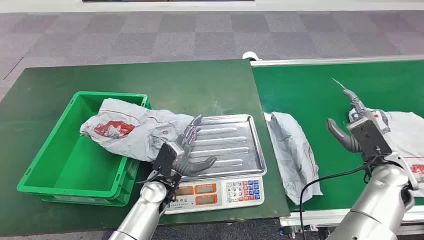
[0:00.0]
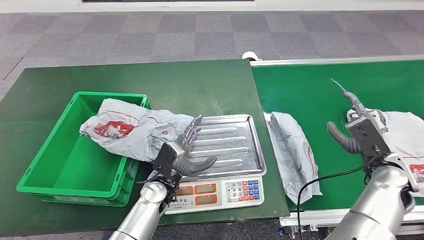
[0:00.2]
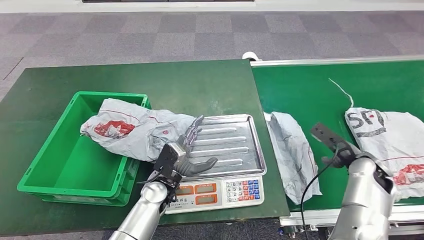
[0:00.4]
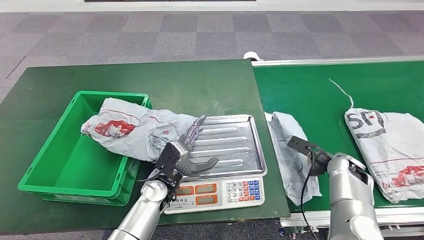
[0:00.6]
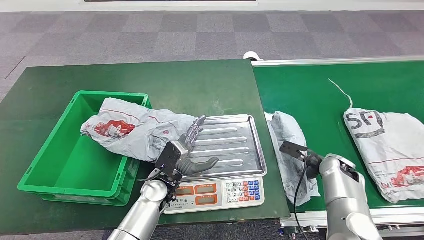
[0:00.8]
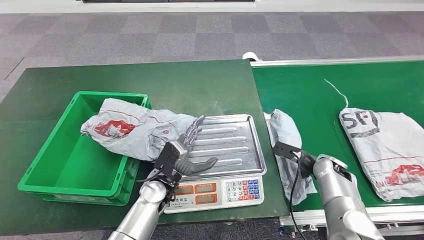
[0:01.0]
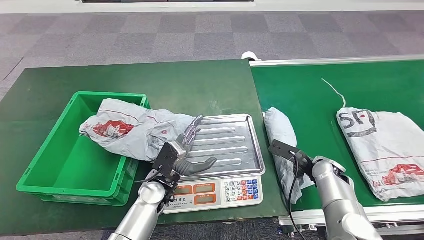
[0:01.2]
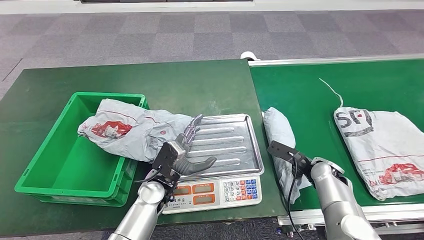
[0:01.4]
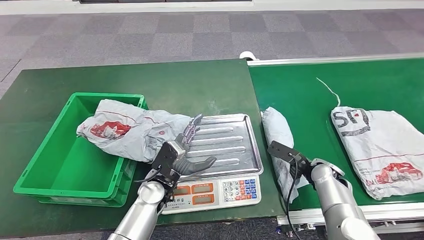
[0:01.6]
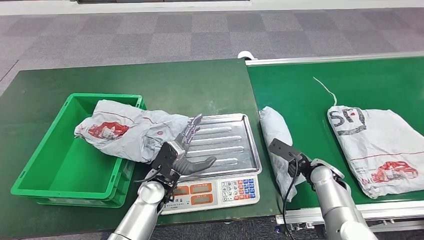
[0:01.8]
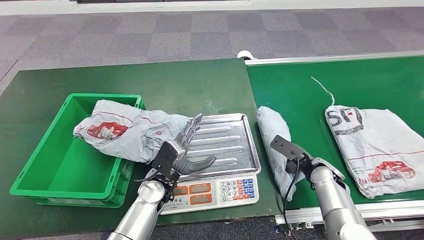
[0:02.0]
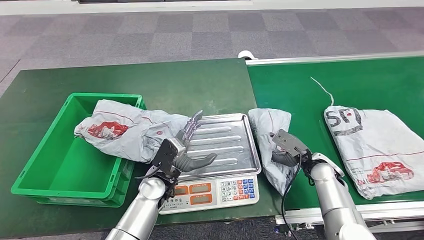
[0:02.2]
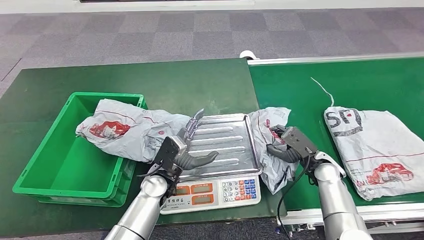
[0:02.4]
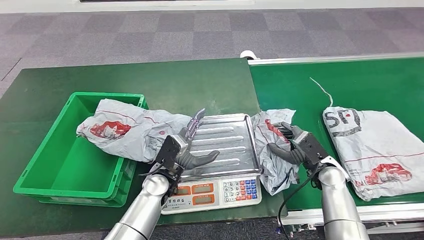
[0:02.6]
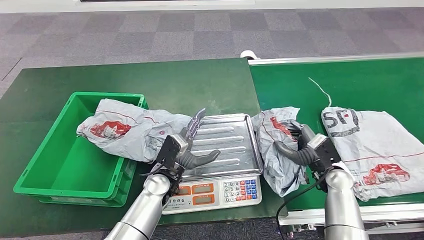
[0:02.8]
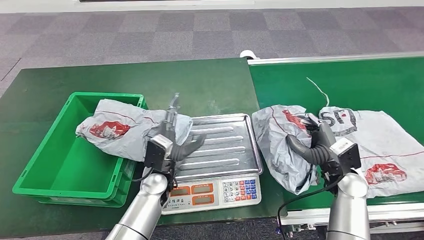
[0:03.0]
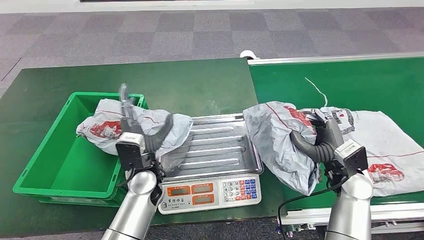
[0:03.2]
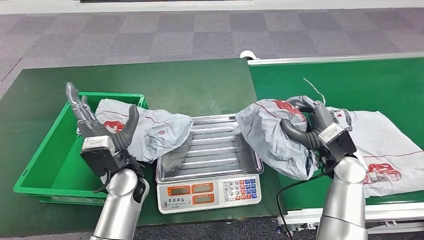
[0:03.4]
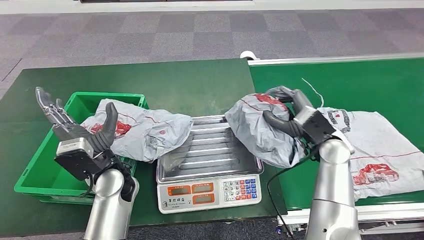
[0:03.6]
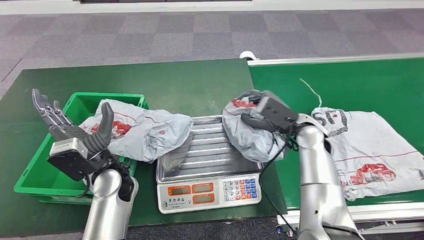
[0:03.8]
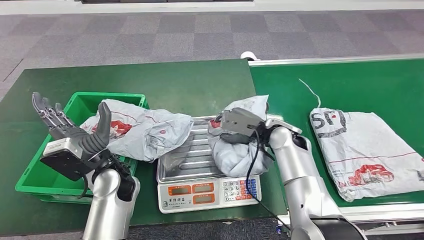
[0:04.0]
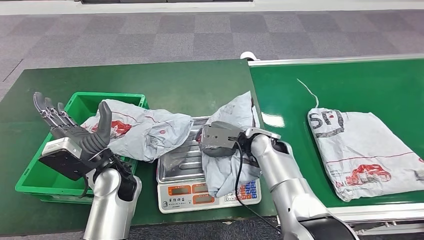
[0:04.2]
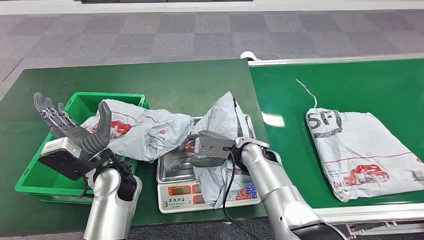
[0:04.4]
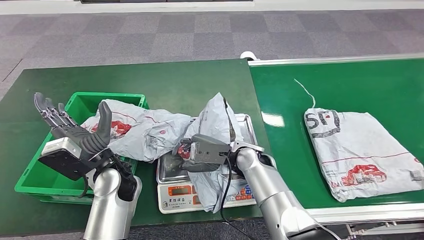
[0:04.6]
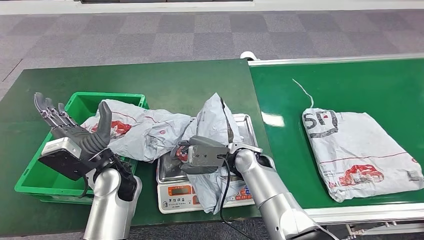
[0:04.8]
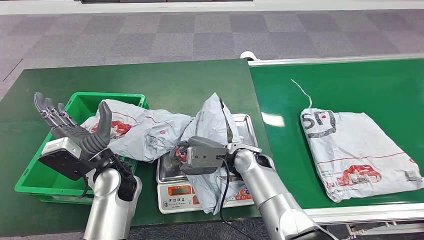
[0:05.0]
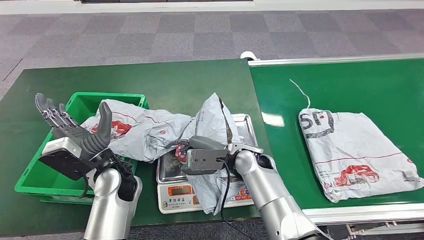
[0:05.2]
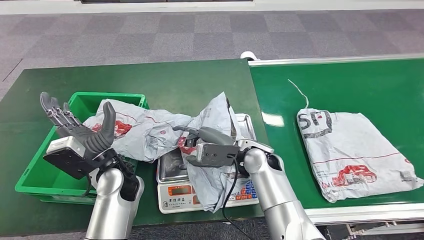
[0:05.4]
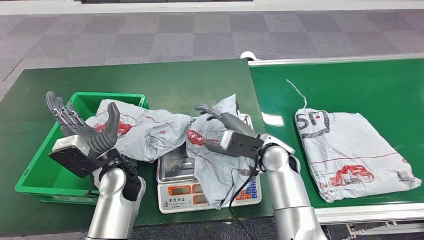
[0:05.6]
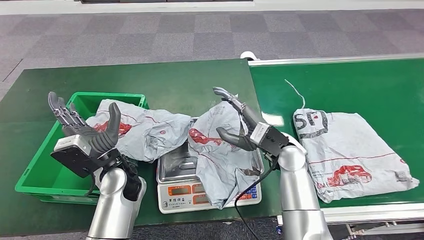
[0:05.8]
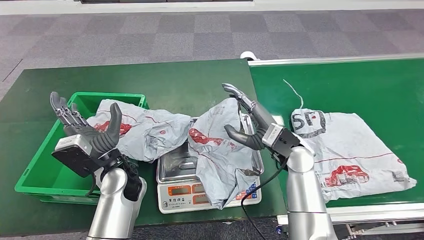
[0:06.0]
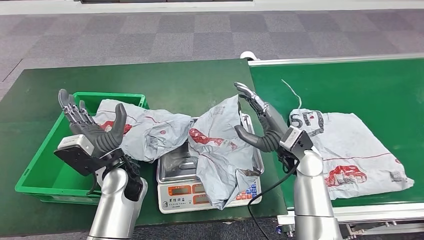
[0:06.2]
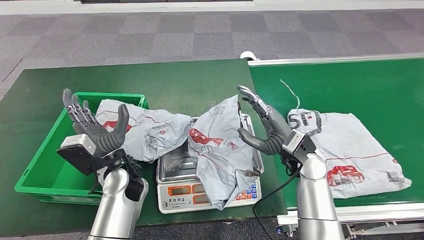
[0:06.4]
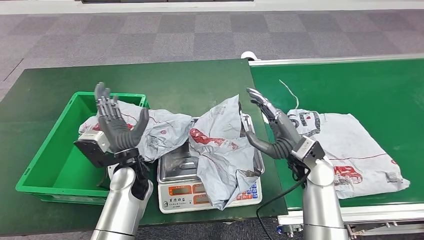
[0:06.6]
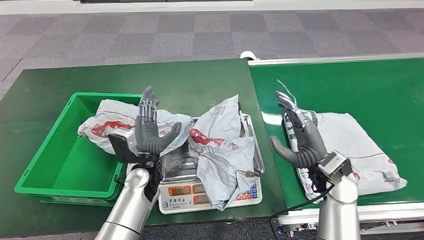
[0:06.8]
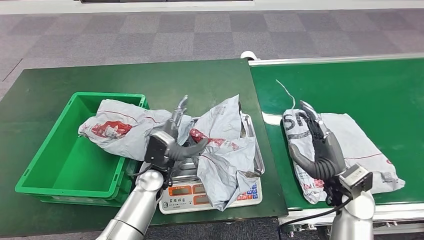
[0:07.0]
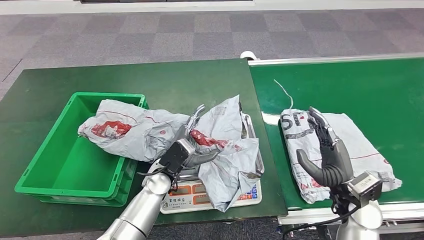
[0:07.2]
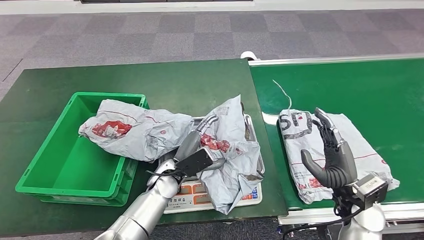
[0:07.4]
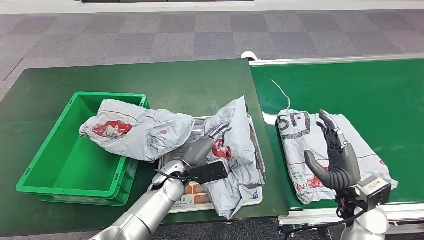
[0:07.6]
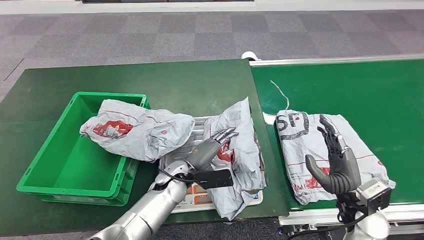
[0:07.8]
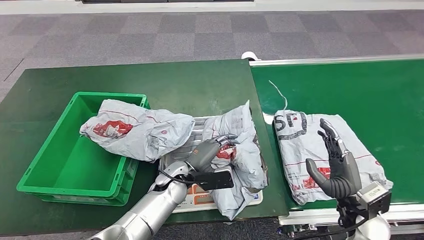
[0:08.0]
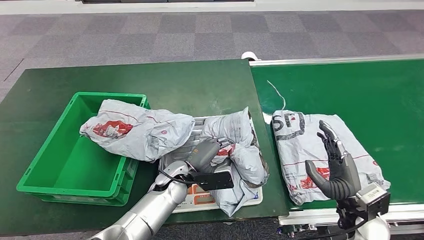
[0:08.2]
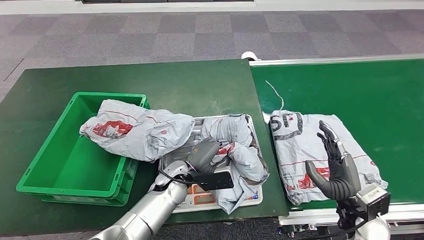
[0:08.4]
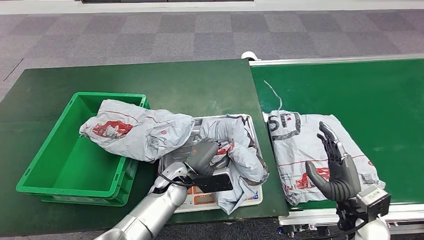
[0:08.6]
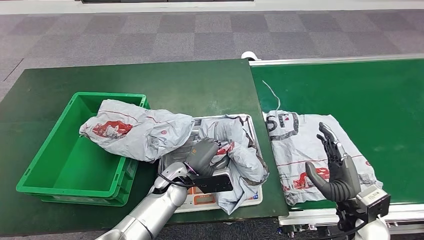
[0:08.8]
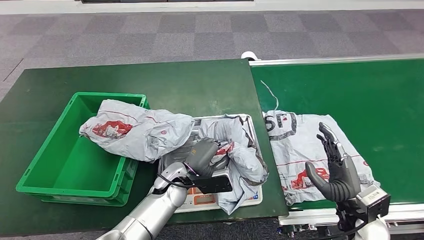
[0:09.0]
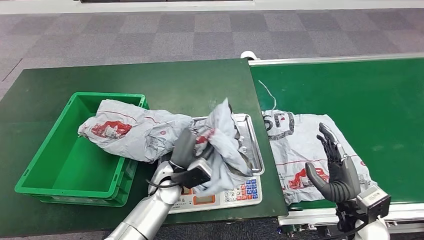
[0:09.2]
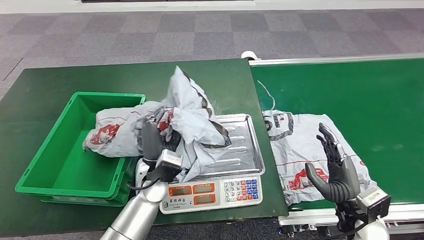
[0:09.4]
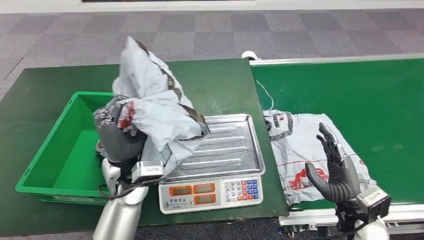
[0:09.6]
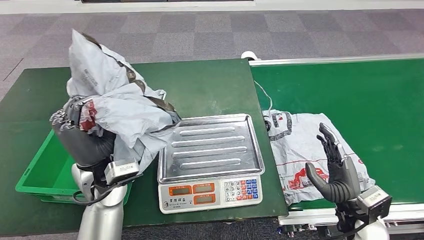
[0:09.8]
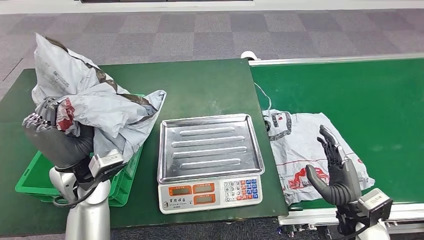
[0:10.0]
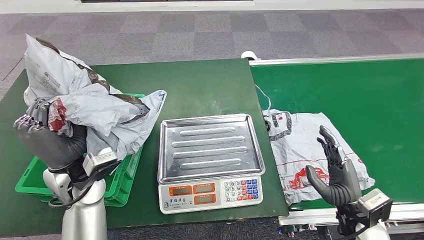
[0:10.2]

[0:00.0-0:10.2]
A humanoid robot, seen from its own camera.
Step, 0:00.0 to 0:03.6: Pick up the package from the conveyor belt.
Step, 0:03.8 to 0:06.4: Place the package onto the inbound machine.

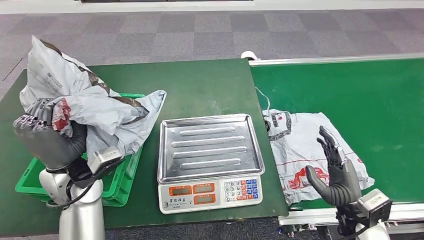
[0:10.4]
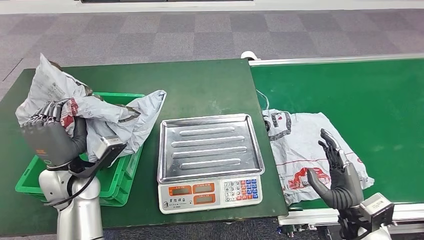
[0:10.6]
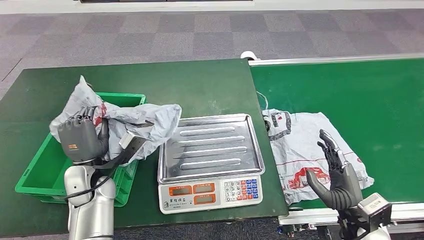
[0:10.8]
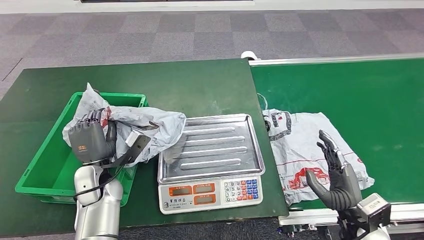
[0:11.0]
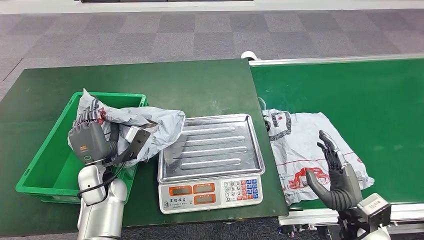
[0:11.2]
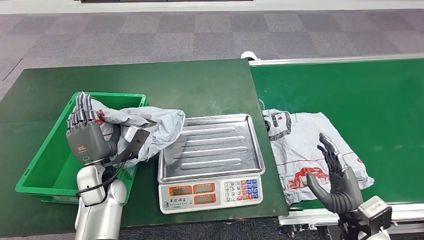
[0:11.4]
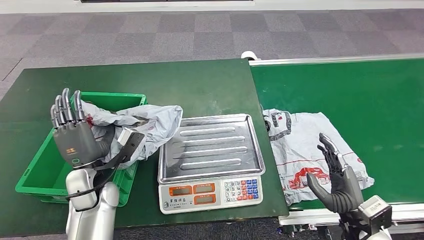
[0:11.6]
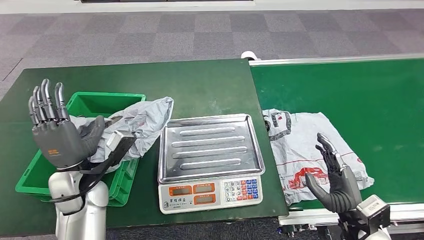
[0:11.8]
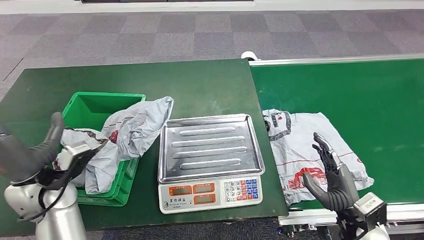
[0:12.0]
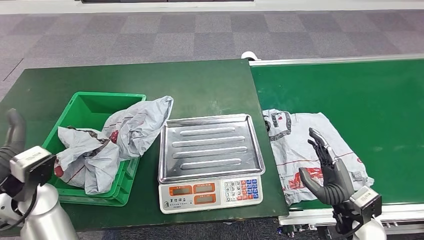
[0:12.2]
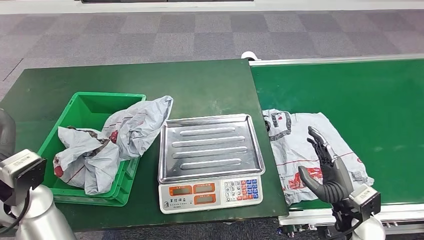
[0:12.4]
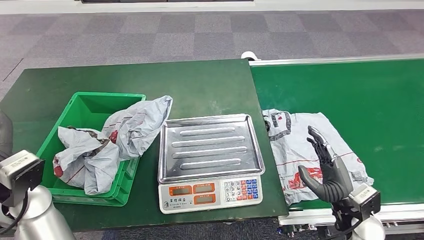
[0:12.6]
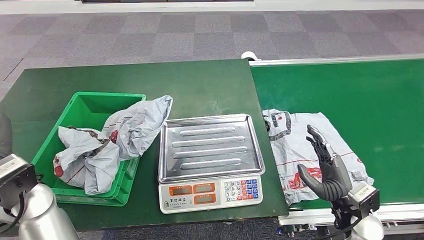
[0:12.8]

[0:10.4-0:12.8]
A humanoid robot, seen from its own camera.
Step, 0:10.6 to 0:12.8: Place the package into the parcel locker.
0:10.4 to 0:11.6: The left hand moves downward, about 5 cm.
0:11.6 to 0:12.8: The left hand goes about 10 cm upward and to the left.

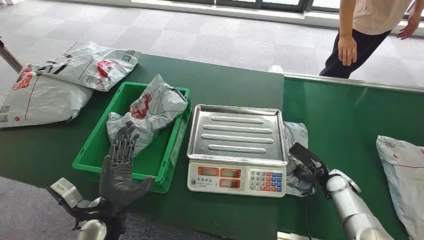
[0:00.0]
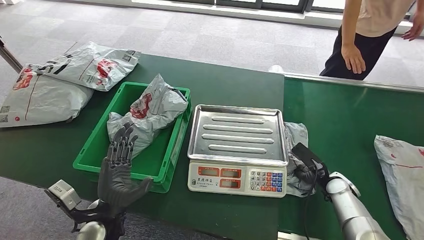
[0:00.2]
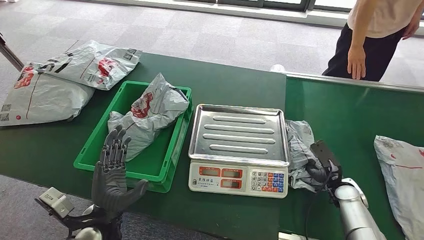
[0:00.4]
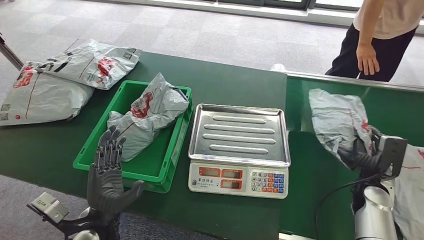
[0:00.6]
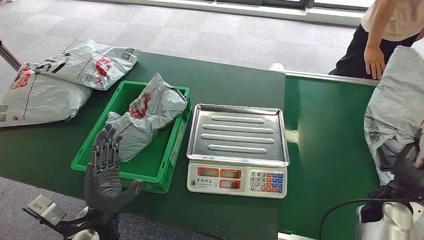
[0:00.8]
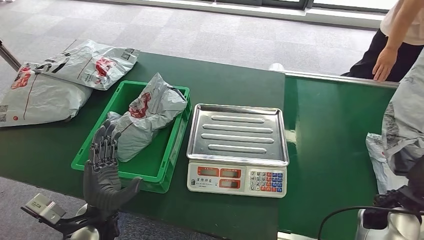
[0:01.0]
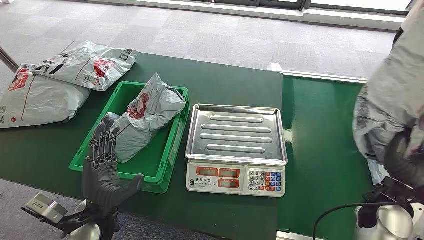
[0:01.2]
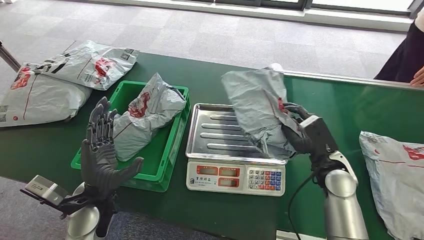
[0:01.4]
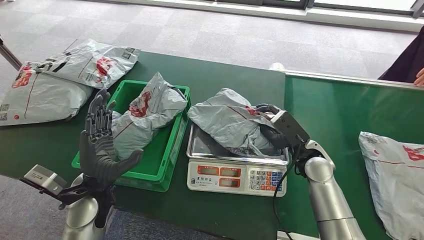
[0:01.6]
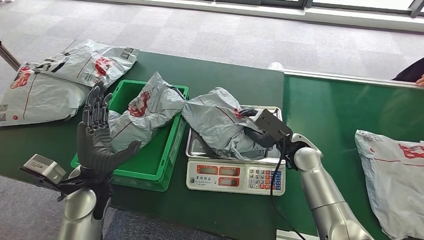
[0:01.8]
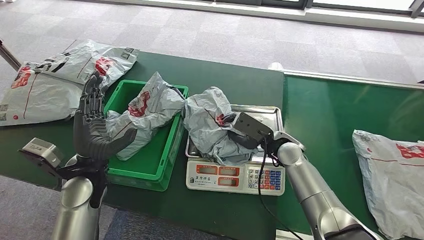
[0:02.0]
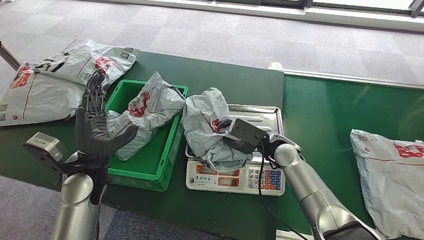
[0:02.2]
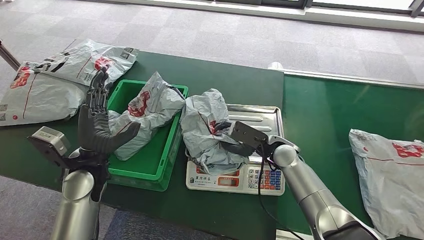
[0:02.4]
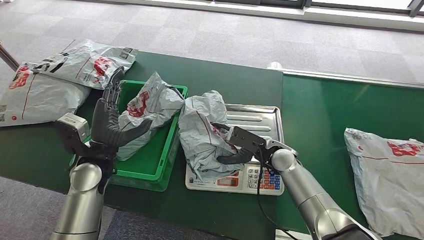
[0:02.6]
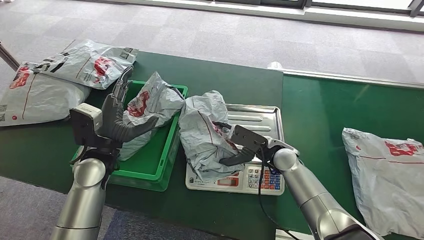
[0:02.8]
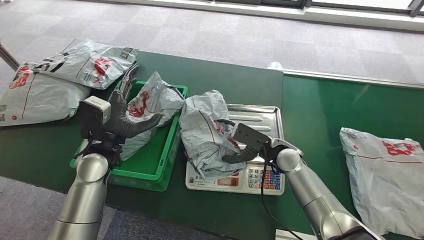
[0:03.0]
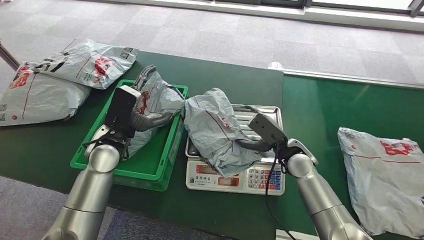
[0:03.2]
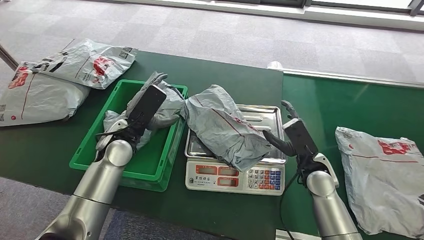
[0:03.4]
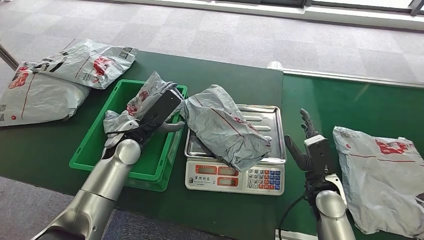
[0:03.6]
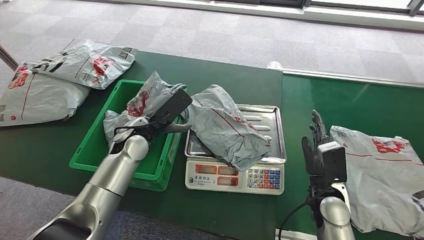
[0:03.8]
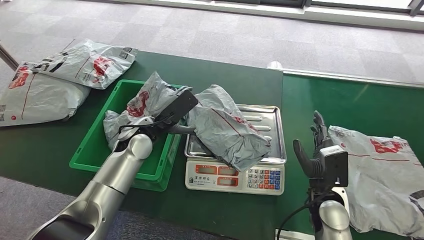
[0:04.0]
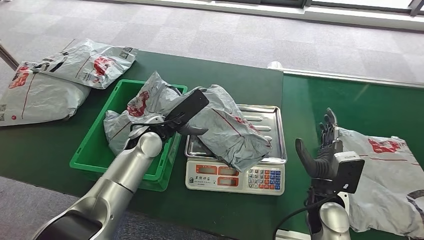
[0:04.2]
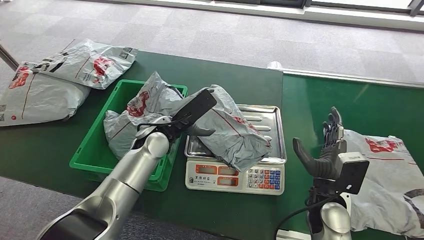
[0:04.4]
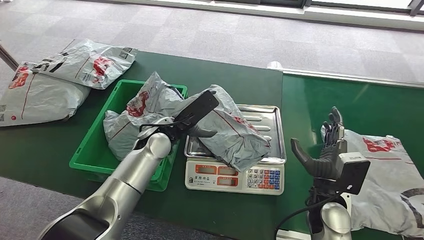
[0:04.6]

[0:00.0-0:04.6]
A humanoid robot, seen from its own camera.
Step, 0:00.0 to 0:01.0: Pick up the package from the conveyor belt.
Step, 0:01.4 to 0:02.4: Place the package onto the inbound machine.
